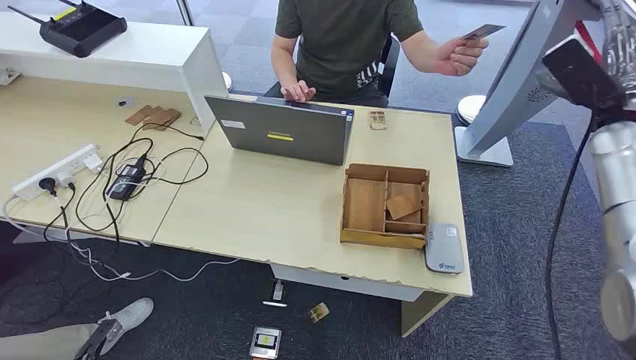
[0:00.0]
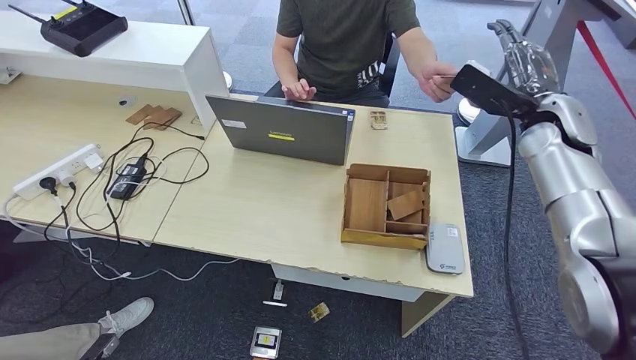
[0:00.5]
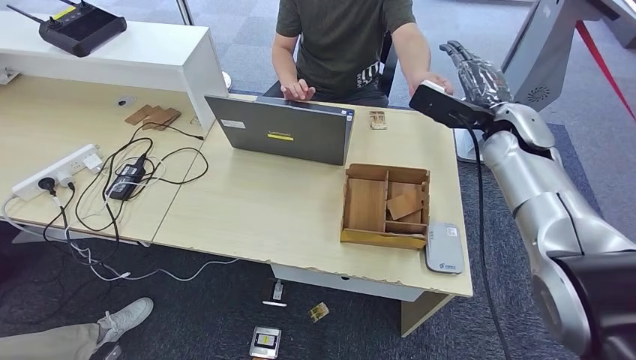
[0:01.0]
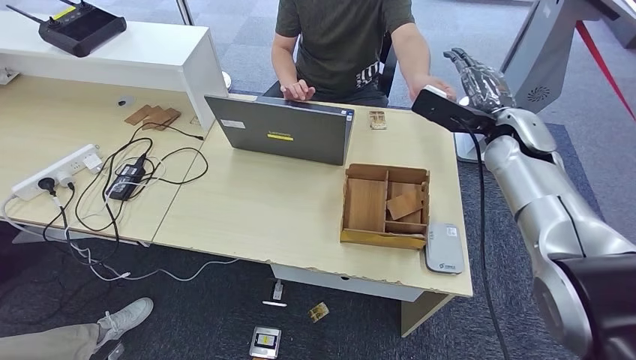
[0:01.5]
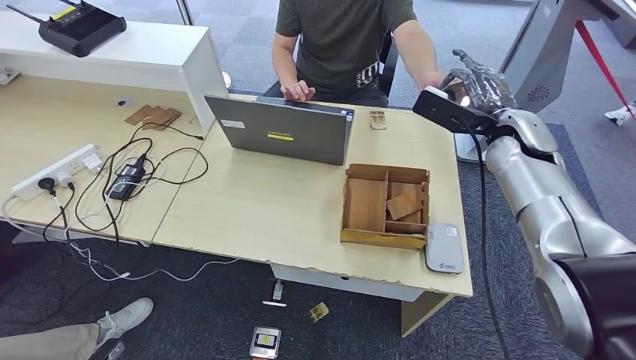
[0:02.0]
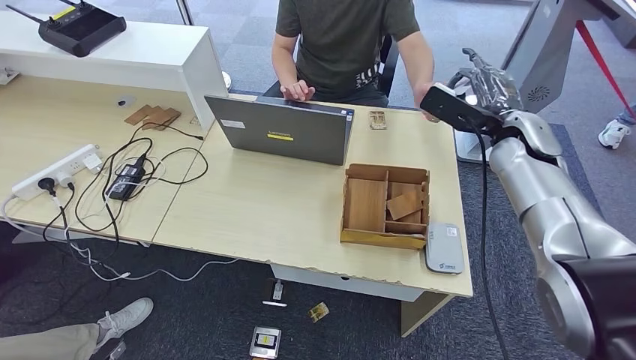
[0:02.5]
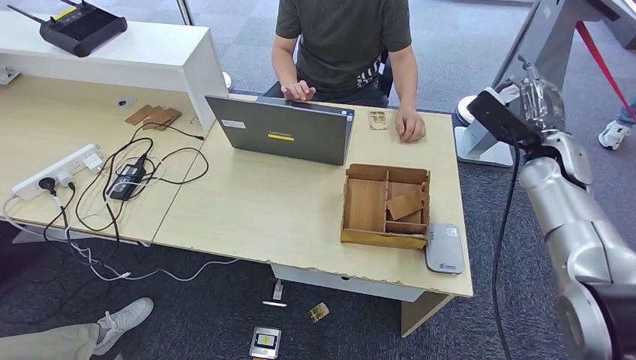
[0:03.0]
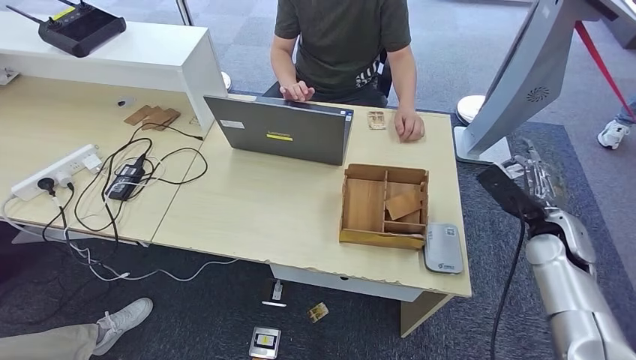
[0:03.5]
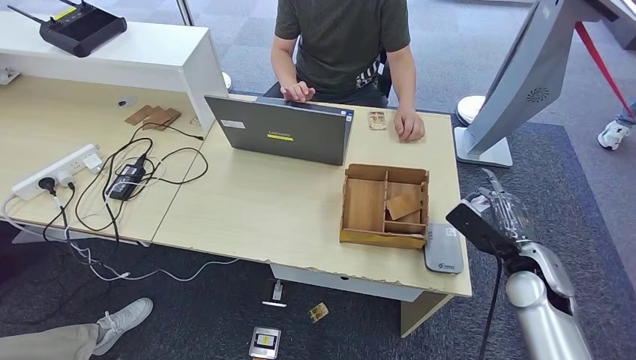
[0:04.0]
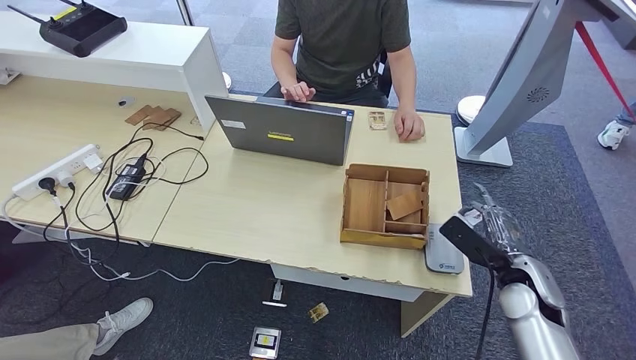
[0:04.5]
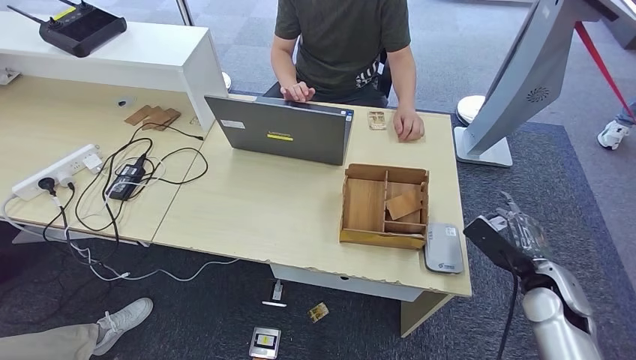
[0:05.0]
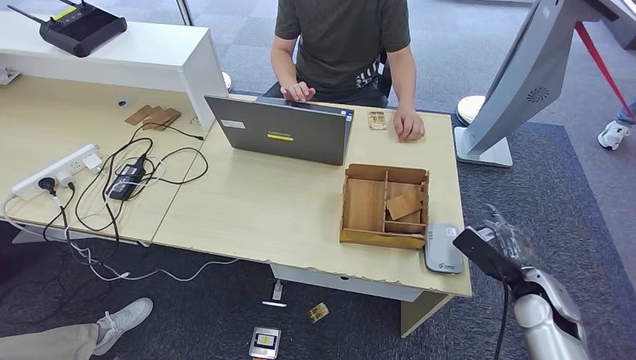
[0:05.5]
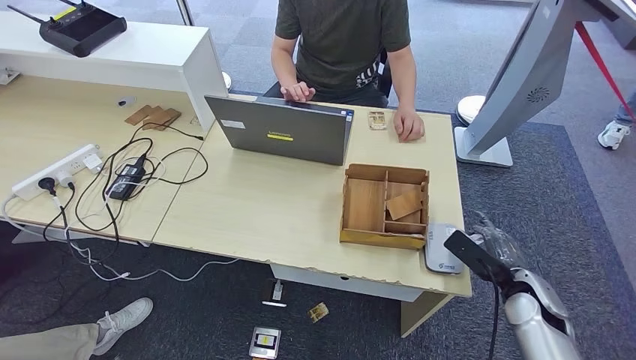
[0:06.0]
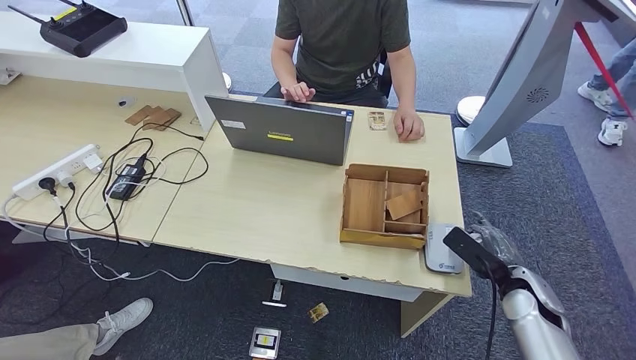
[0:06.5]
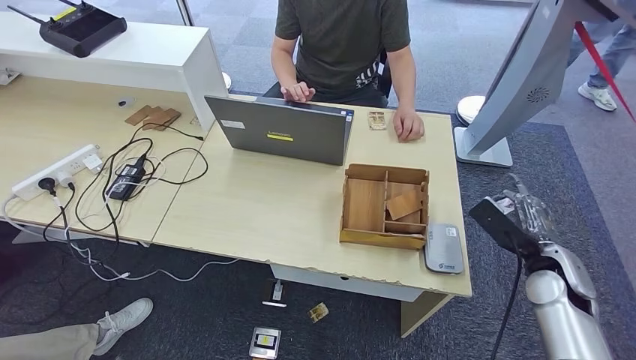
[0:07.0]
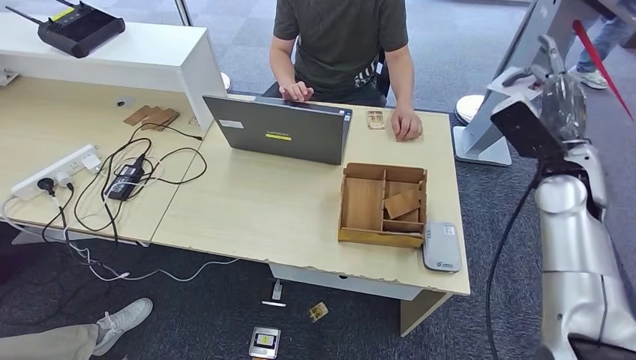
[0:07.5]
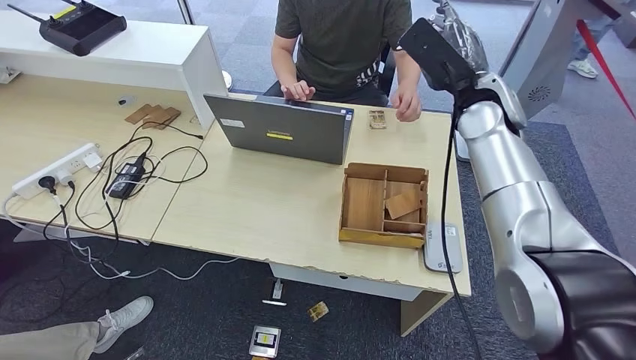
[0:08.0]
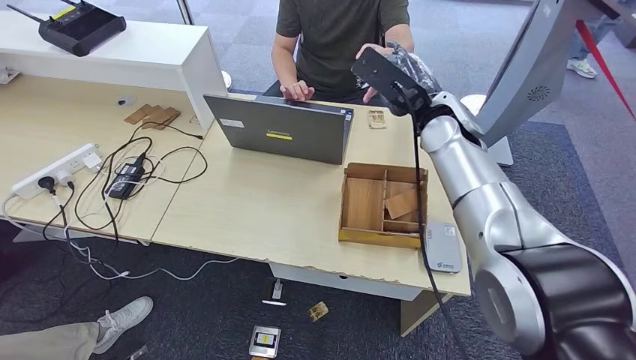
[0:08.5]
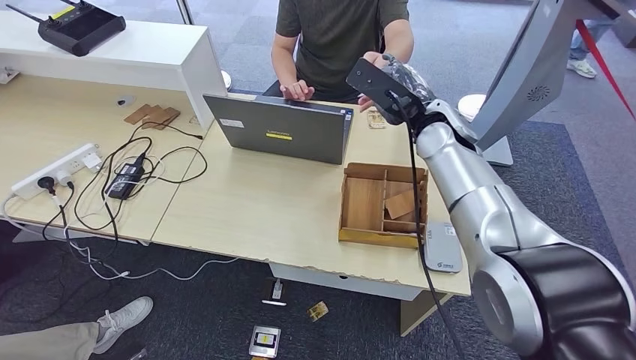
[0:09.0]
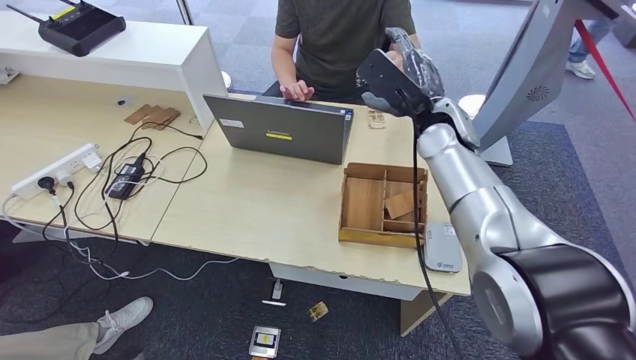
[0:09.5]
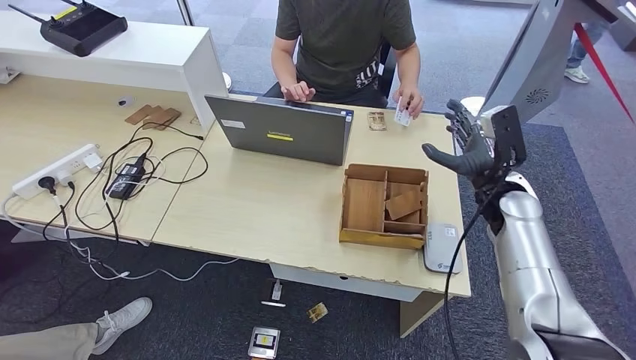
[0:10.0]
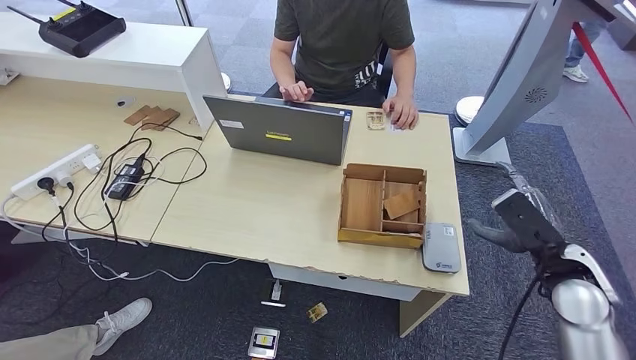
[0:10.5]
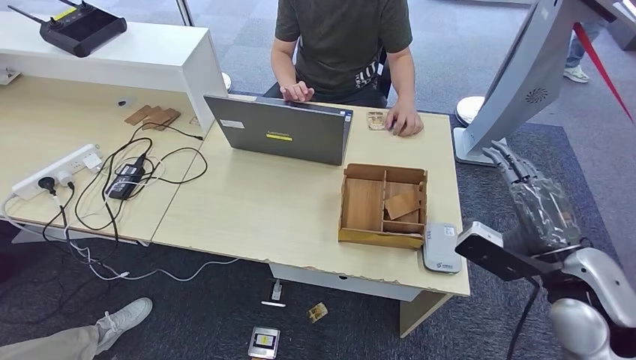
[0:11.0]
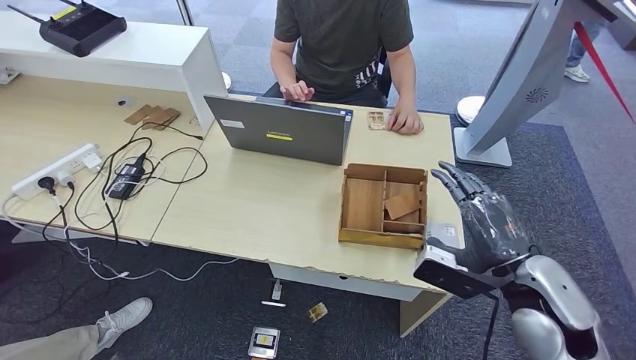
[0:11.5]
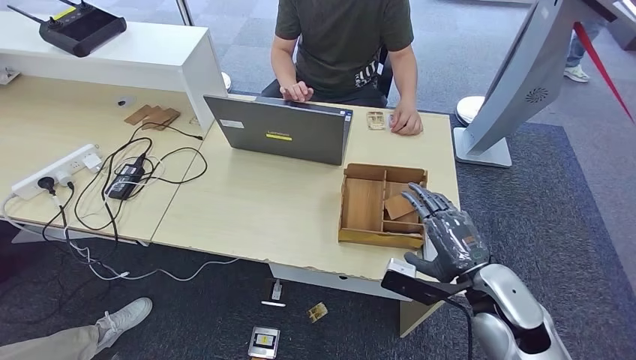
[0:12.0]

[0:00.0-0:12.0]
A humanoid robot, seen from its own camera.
Step, 0:00.0 to 0:03.0: Take the ID card from the person's hand.
Step, 0:03.5 to 0:07.0: Place the ID card on the card reader.
Step, 0:08.0 to 0:10.5: Hand the ID card to the person.
0:02.0 to 0:04.0: The right hand heads downward and backward, covering roughly 25 cm.
0:04.0 to 0:06.0: The right hand is displaced downward by some 5 cm.
0:06.0 to 0:08.0: The right hand moves upward, forward and to the left, roughly 35 cm.
0:08.0 to 0:10.0: The right hand shifts approximately 15 cm downward and to the right.
0:10.0 to 0:12.0: The right hand heads backward, covering approximately 20 cm.

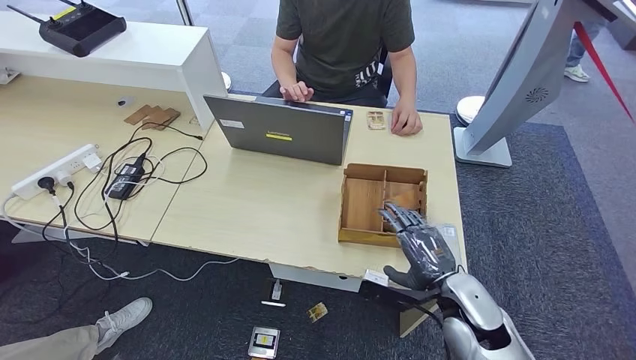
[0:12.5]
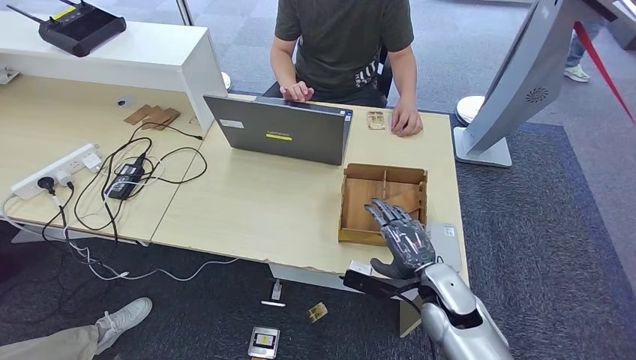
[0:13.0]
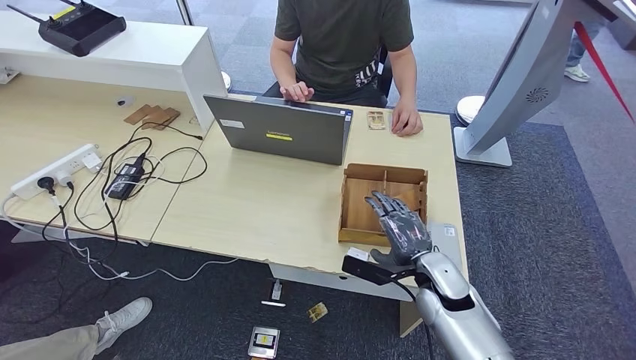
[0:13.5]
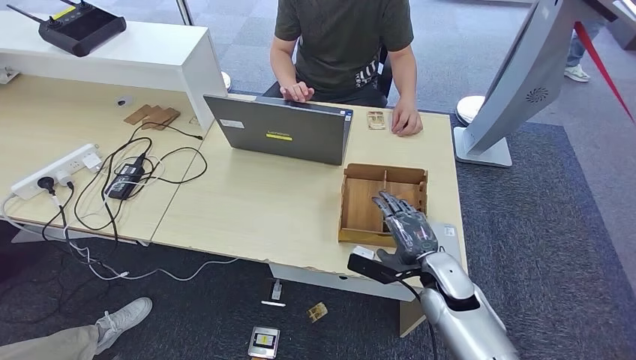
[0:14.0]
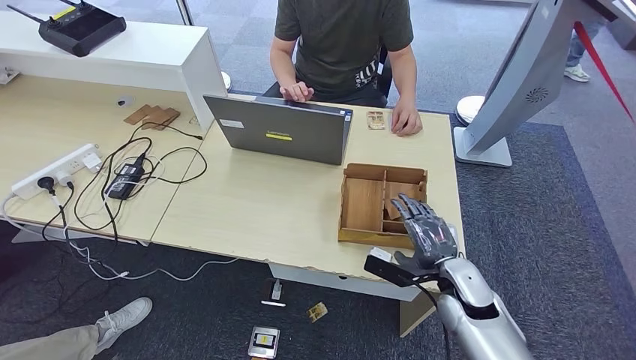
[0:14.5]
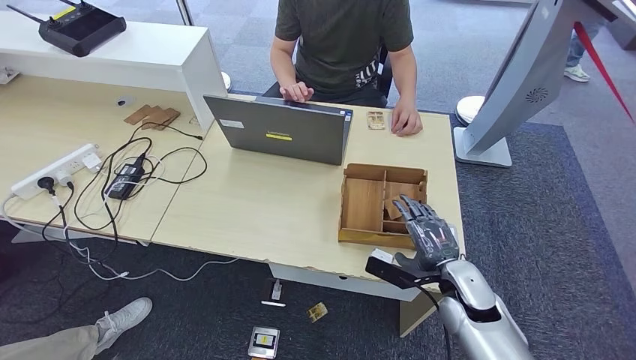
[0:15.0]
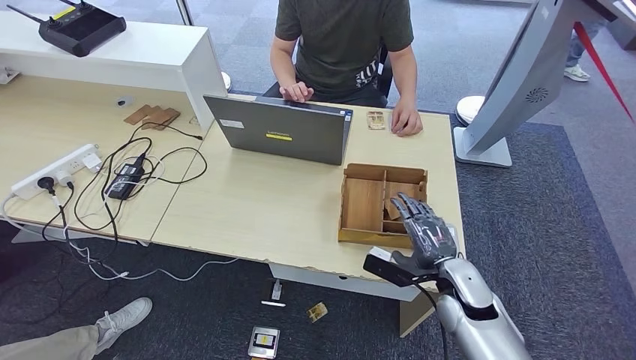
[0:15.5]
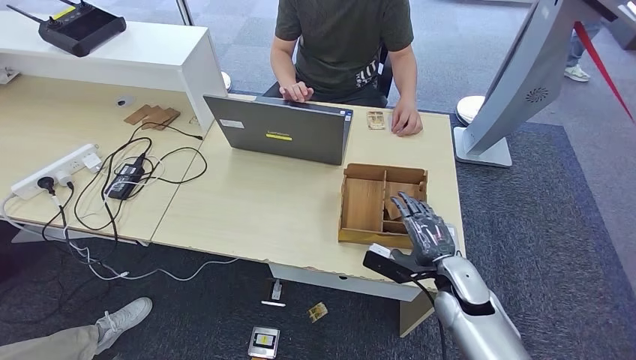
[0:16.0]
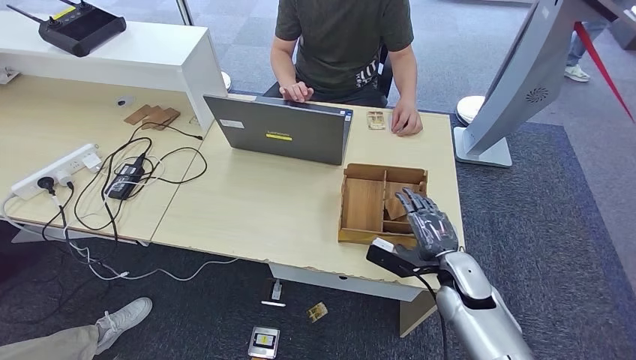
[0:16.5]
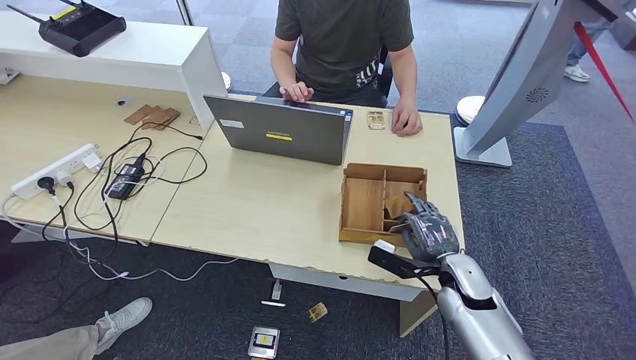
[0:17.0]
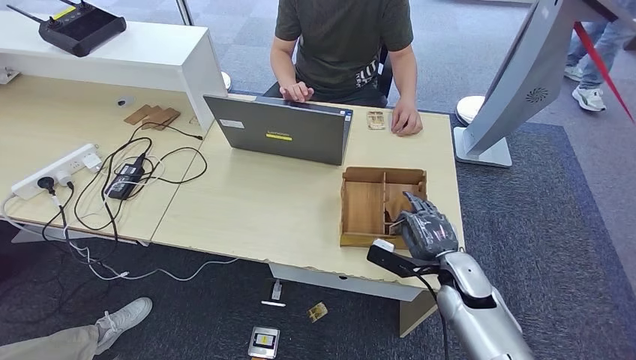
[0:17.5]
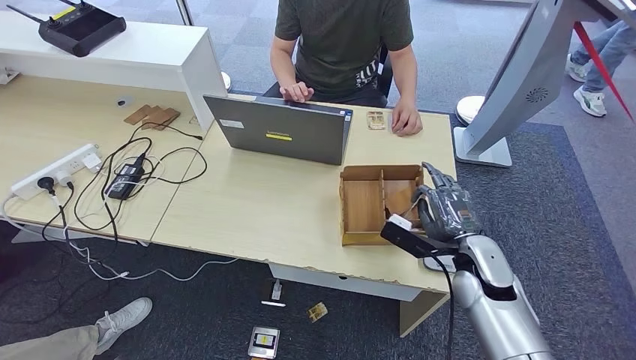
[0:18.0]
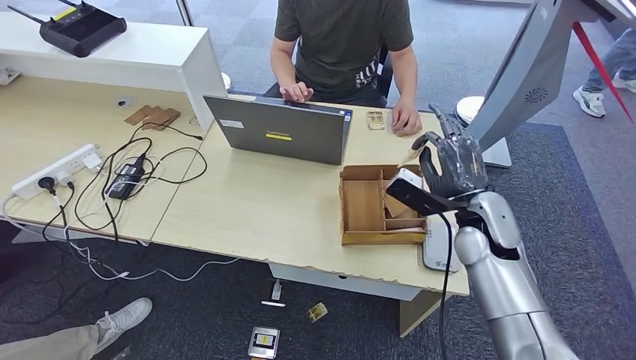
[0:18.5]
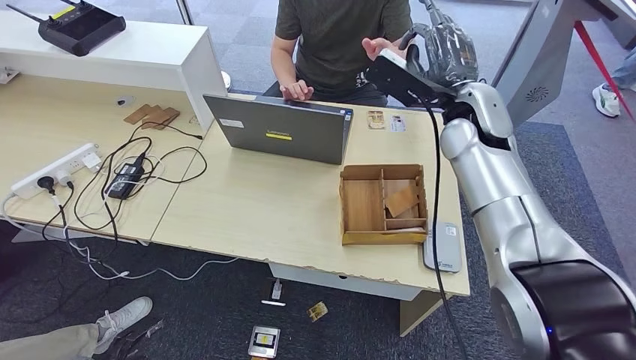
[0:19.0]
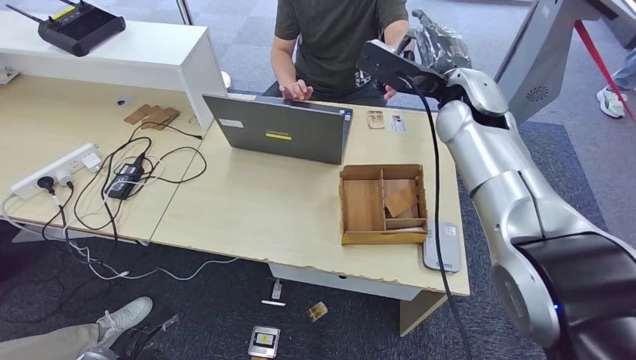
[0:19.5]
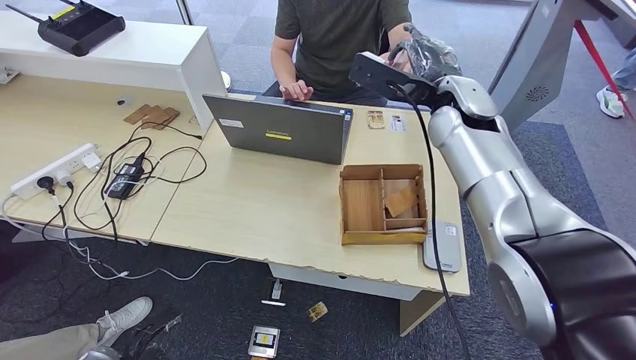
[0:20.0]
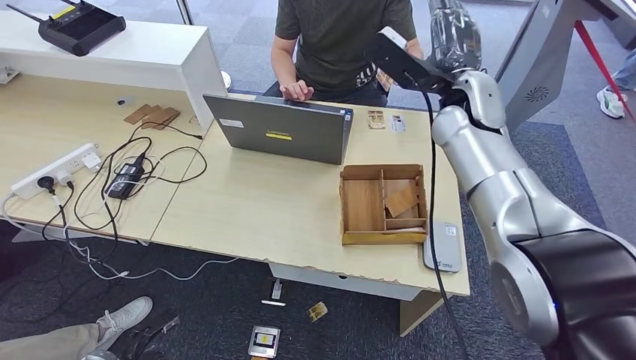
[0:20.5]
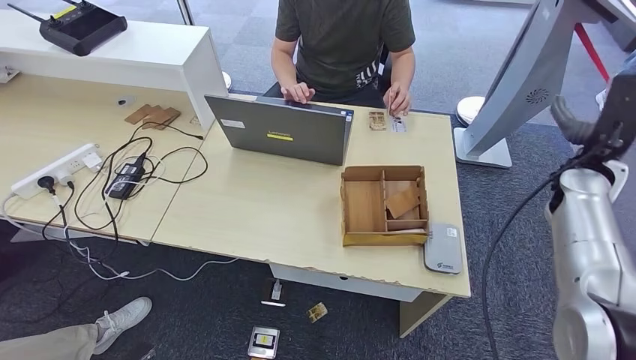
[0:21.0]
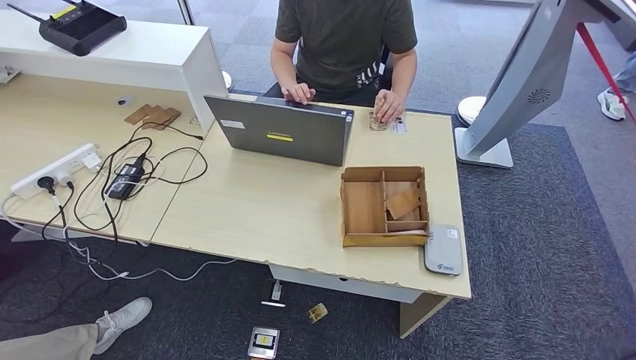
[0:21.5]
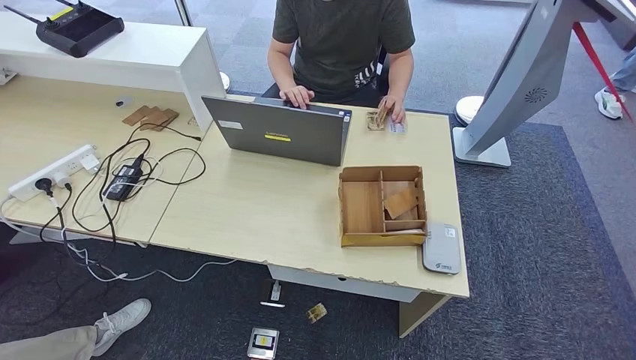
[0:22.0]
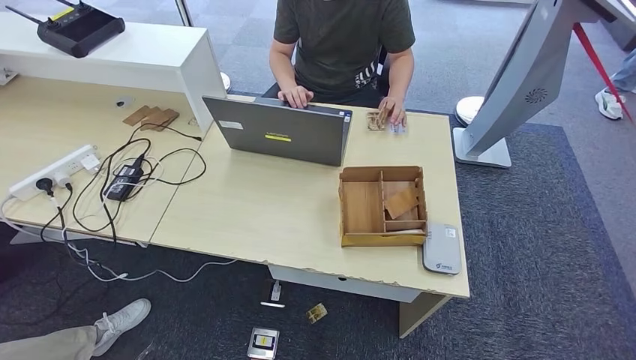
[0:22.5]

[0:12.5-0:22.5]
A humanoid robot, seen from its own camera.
Step, 0:12.5 to 0:19.5: Pick up the room key from the key card box.
0:12.5 to 0:14.5: The right hand ends up some 5 cm from where it was.
0:14.5 to 0:16.5: The hands stay close to where they were, moving slightly.
0:16.5 to 0:18.5: The right hand is displaced upward and forward by roughly 15 cm.
